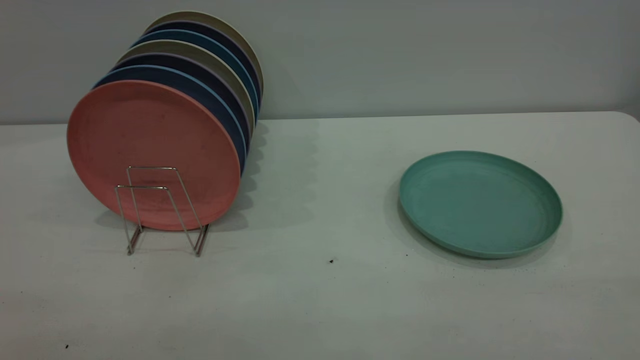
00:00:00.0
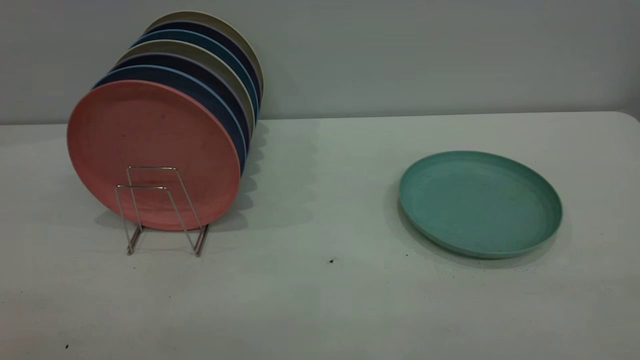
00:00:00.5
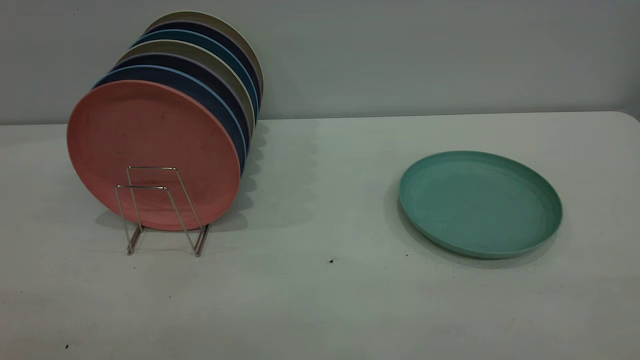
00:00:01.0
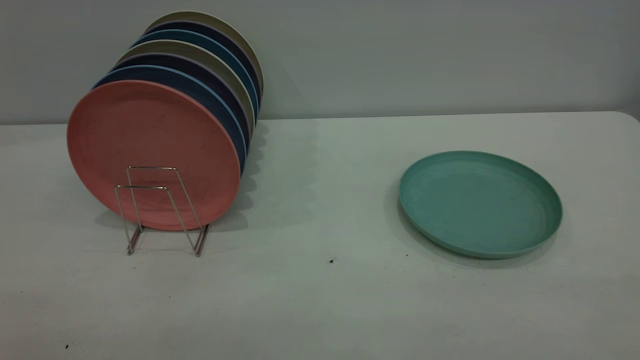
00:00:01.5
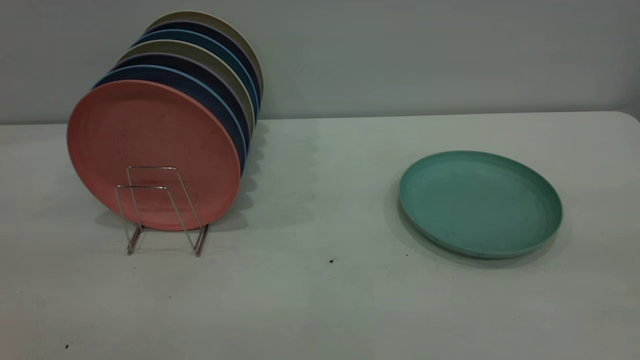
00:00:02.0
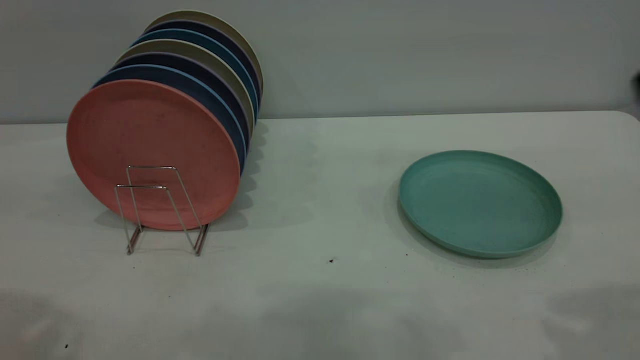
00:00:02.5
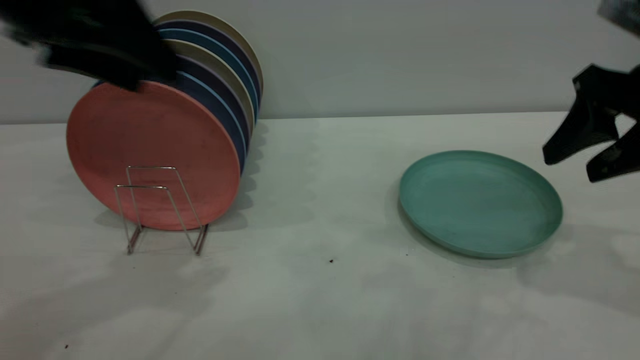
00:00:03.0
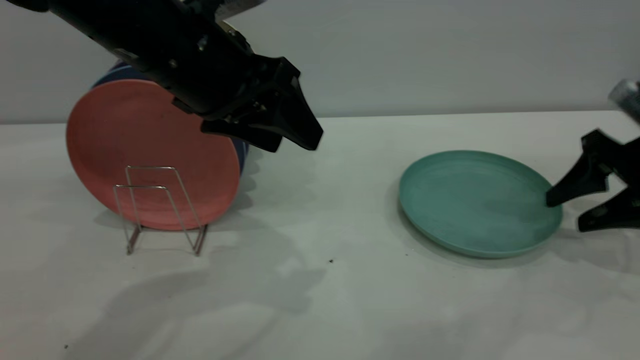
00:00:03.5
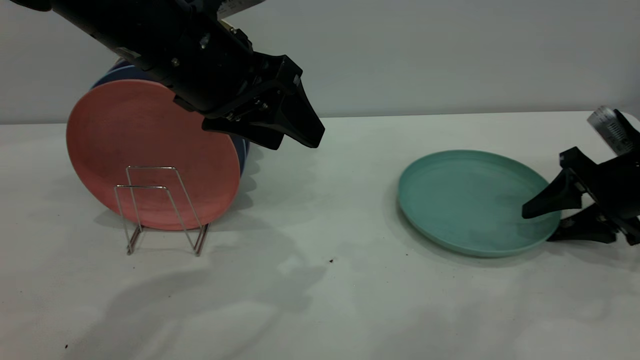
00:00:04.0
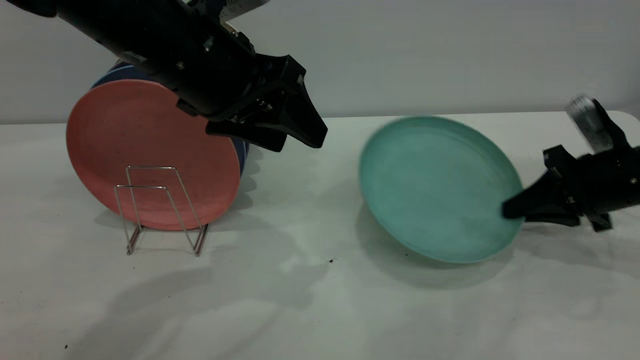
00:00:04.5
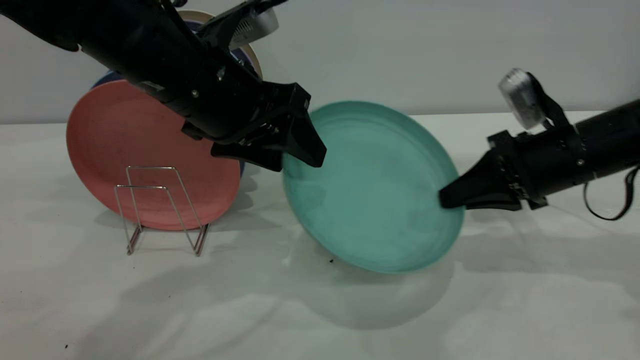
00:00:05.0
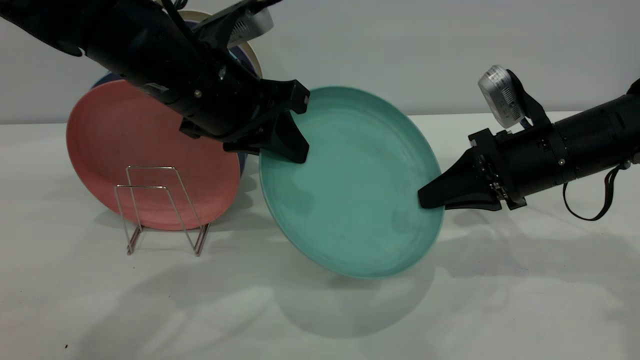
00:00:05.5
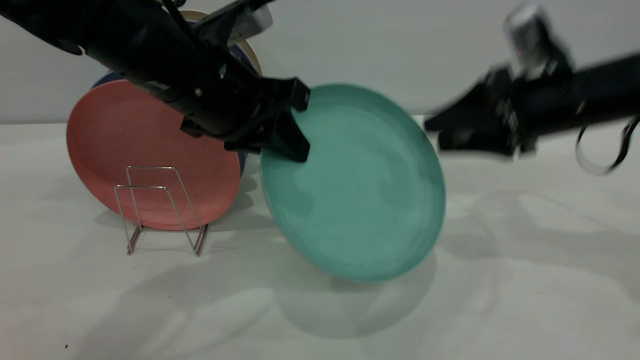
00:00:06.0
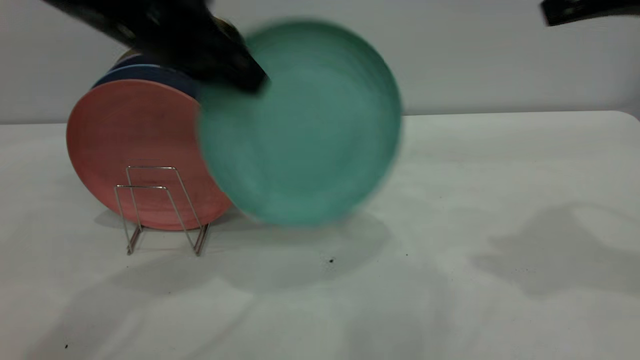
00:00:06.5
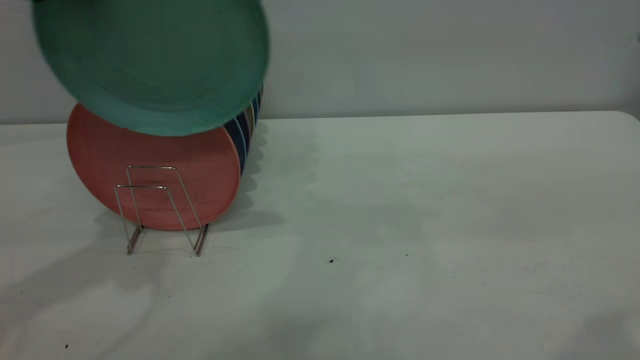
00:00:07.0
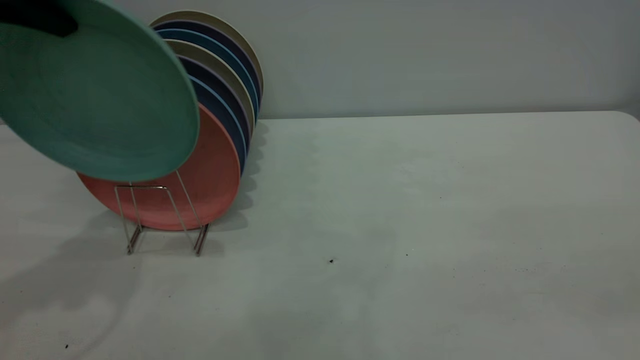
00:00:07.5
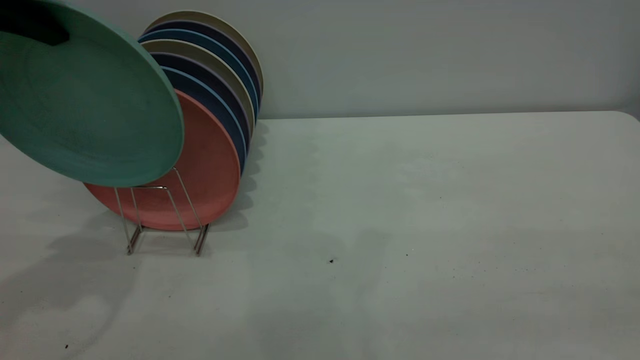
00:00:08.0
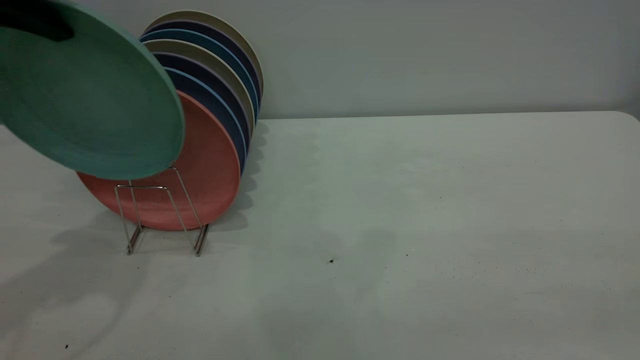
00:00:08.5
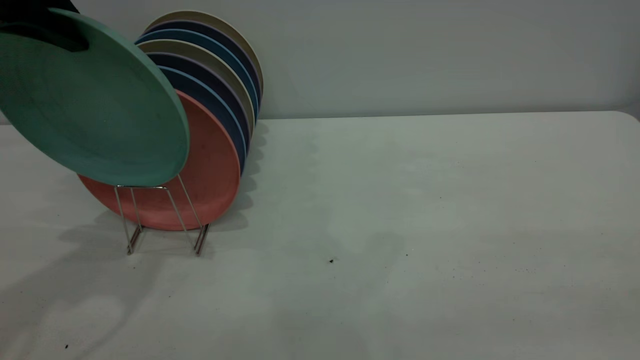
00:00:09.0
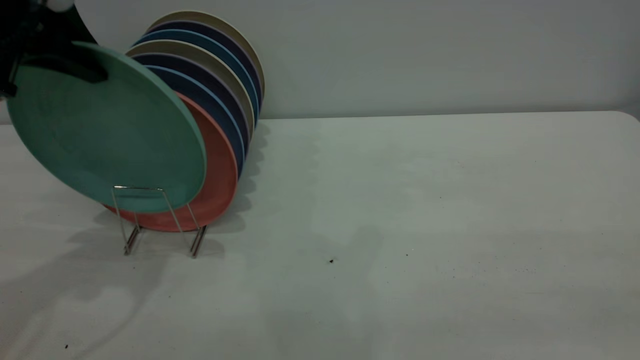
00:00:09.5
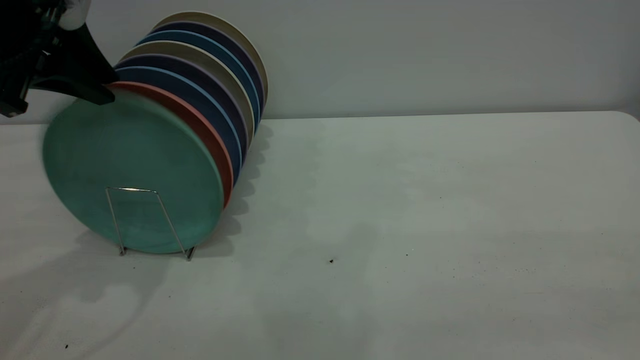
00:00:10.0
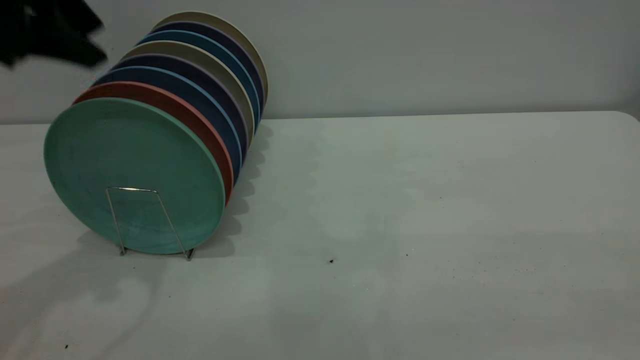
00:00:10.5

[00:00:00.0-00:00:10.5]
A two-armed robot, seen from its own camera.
Task of the whole recording: the right gripper grasp the green plate, the right gripper pass the green plate to the left gripper, and the left gripper place the green plate on the plate rack.
Step, 00:00:00.0 to 00:00:04.5: Pick up the plate with the right gripper.
Step, 00:00:05.0 to 00:00:06.0: Pass the plate from the right gripper to the left gripper.
00:00:02.0 to 00:00:04.0: The left gripper shifts about 35 cm forward, to the right and downward. The right gripper shifts some 40 cm downward and forward.
00:00:04.0 to 00:00:06.5: The right gripper heads upward, covering about 25 cm, and closes and opens again; the left gripper heads to the left, covering roughly 5 cm, and closes its fingers.
00:00:06.5 to 00:00:08.5: The left gripper is displaced to the left and upward by some 10 cm; the right gripper travels backward by approximately 30 cm.
00:00:08.5 to 00:00:10.5: The left gripper opens.
